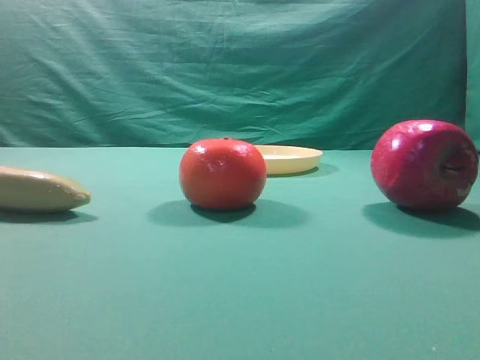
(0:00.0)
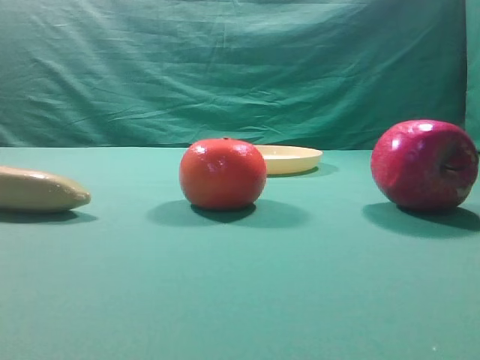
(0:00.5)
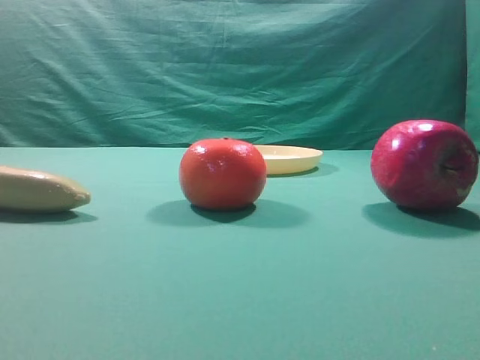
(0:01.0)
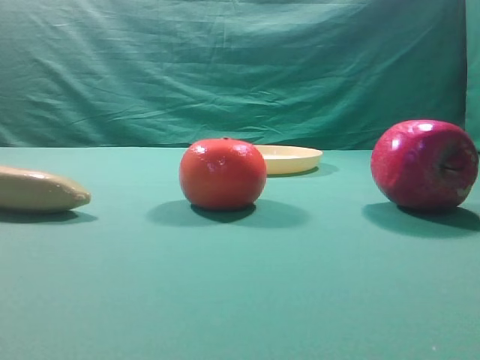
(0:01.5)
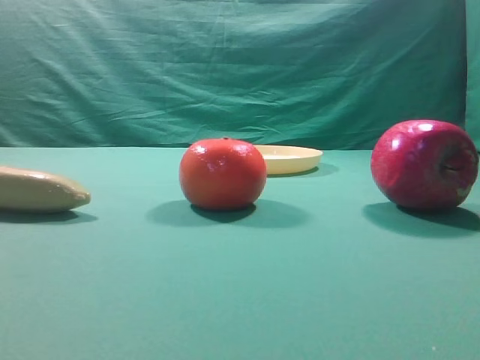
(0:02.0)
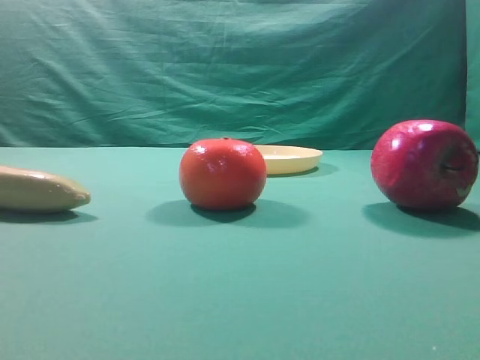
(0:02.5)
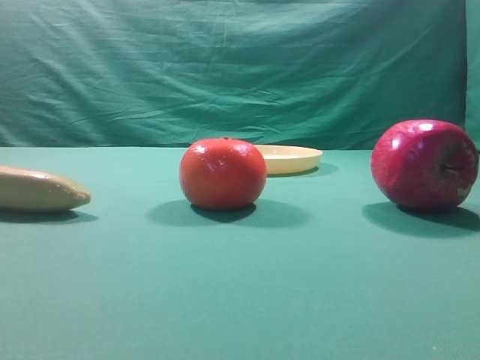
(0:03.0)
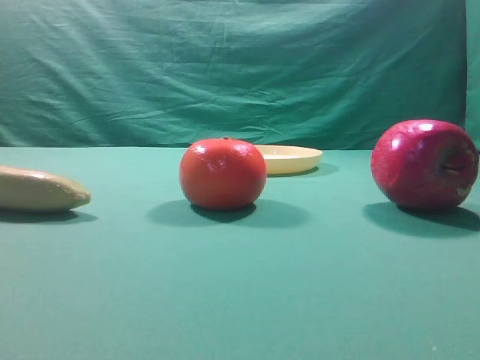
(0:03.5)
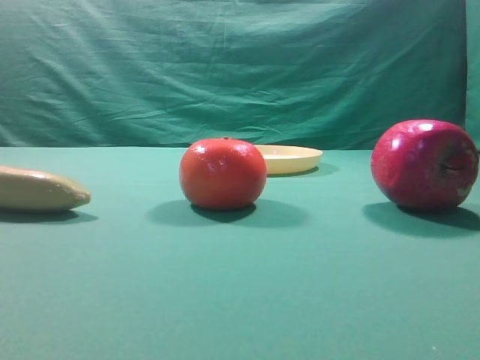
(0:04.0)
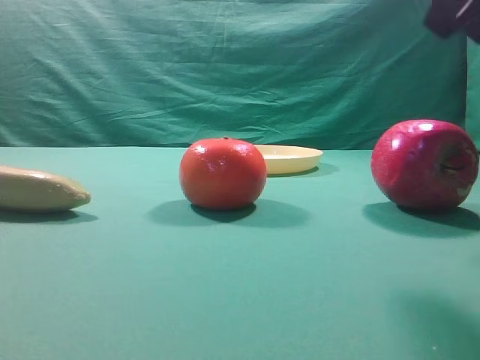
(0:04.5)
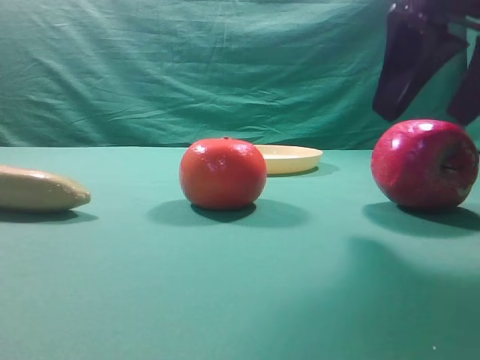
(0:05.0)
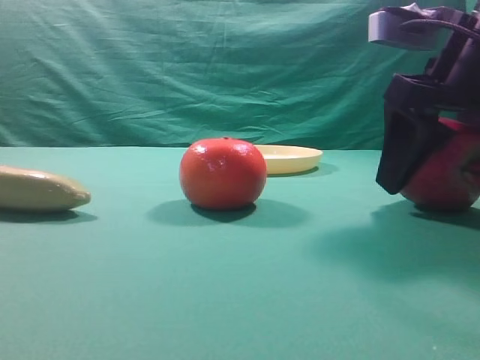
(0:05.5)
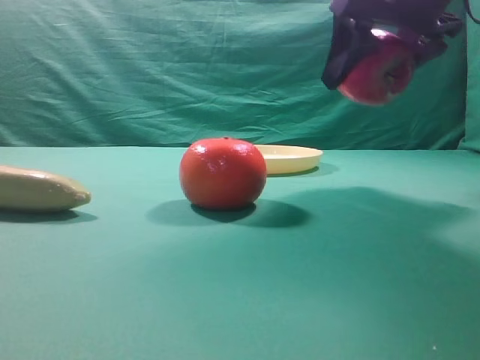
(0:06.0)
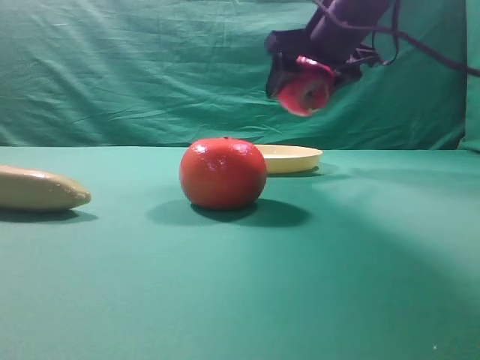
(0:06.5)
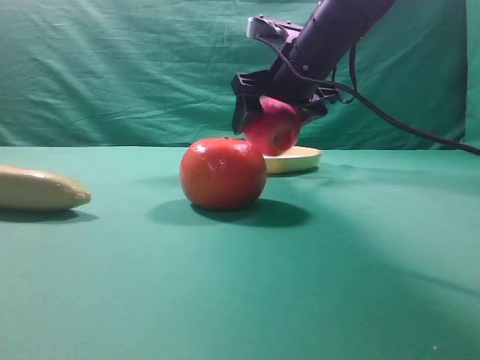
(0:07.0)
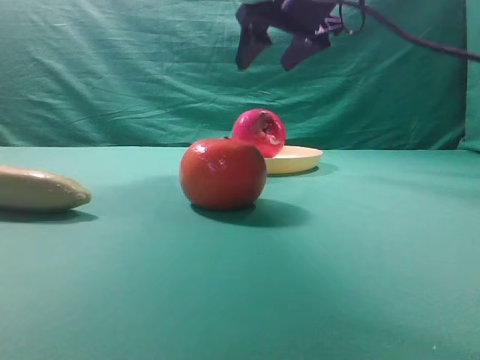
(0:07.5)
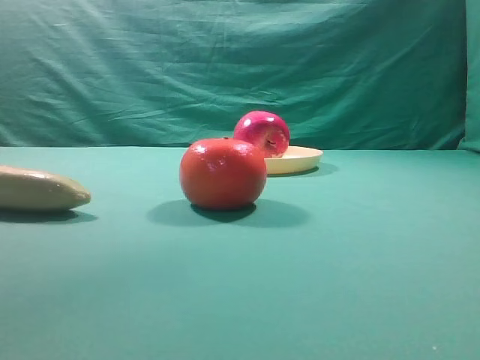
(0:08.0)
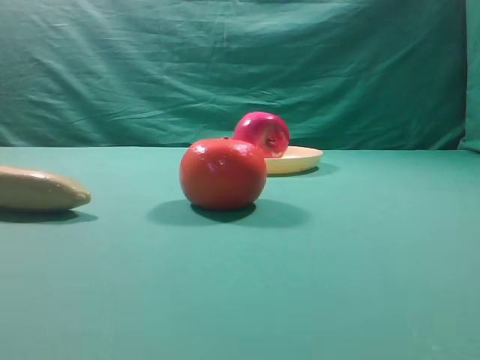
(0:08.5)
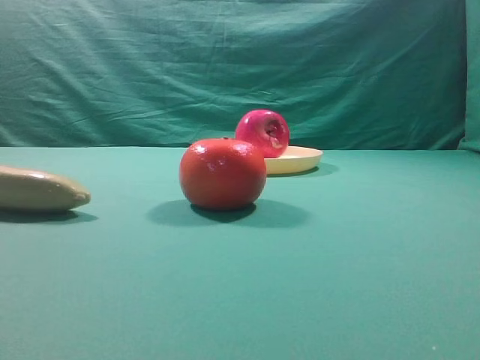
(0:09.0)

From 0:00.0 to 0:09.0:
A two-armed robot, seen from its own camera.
Task of the whole recording: grasp the apple and place it into the yellow plate.
Step, from 0:00.0 to 0:05.5: Grasp the fruit that can keep the doctor away.
Step, from 0:06.0 to 0:07.0: Place the picked object into the yellow plate.

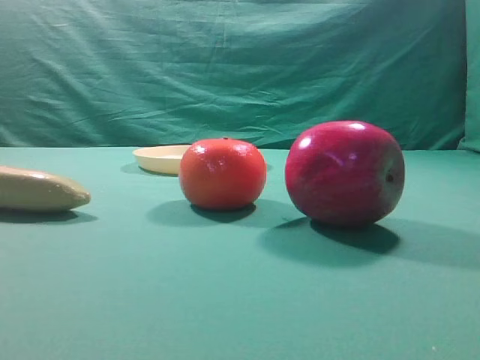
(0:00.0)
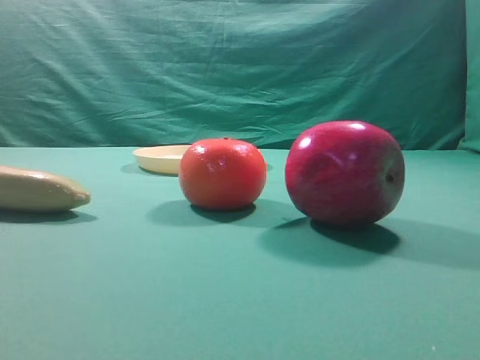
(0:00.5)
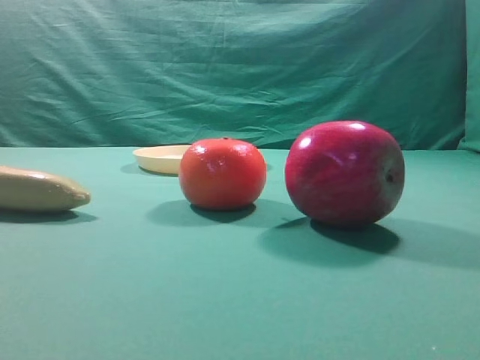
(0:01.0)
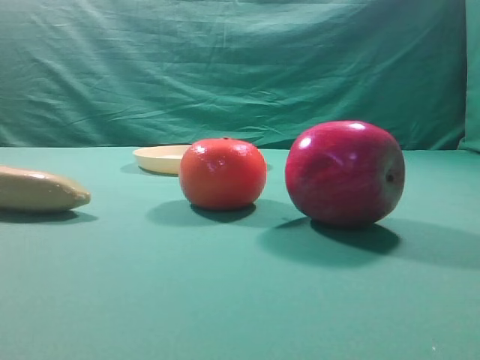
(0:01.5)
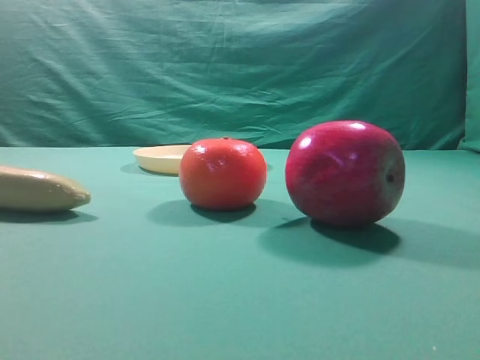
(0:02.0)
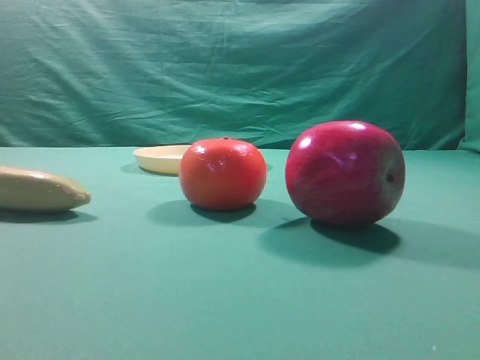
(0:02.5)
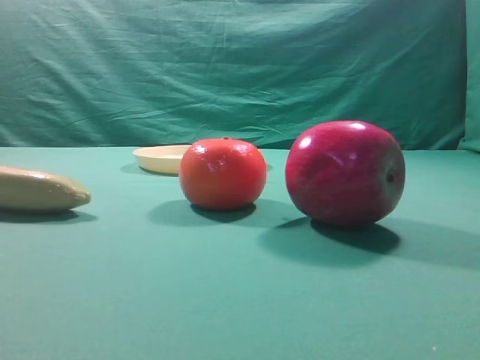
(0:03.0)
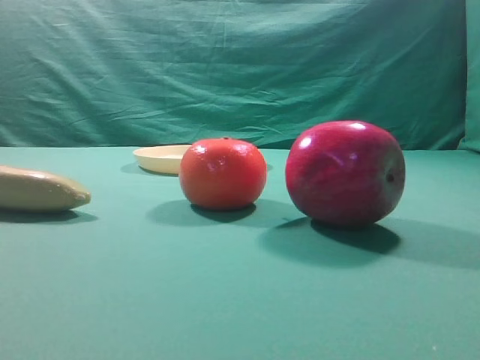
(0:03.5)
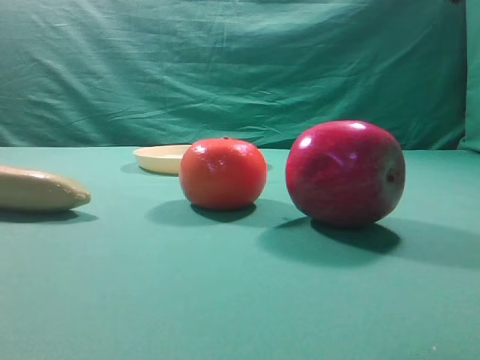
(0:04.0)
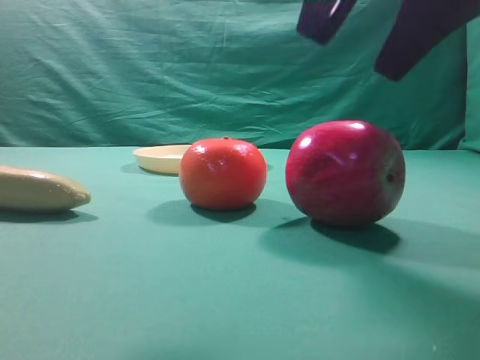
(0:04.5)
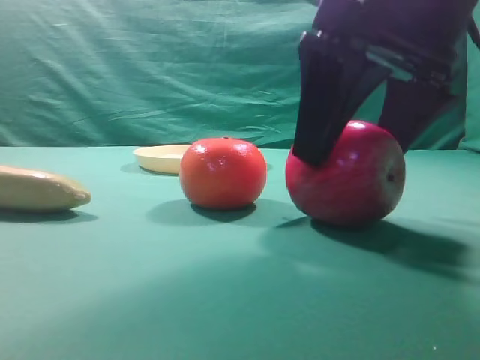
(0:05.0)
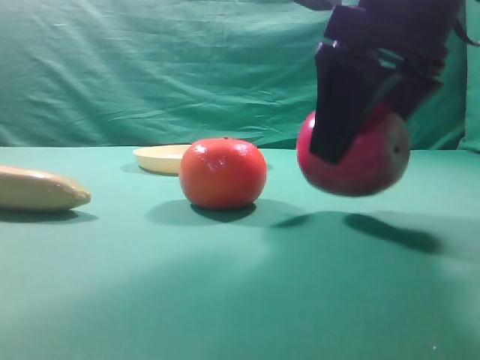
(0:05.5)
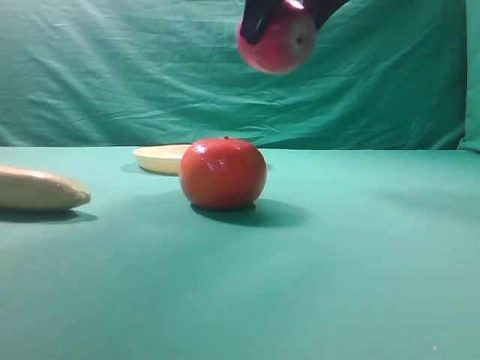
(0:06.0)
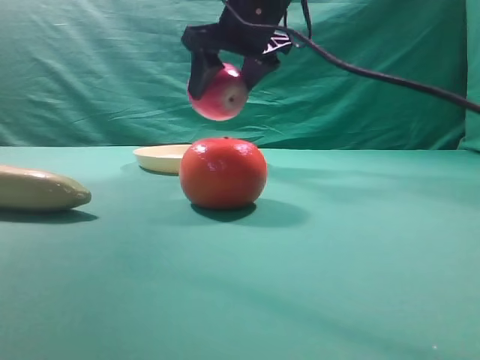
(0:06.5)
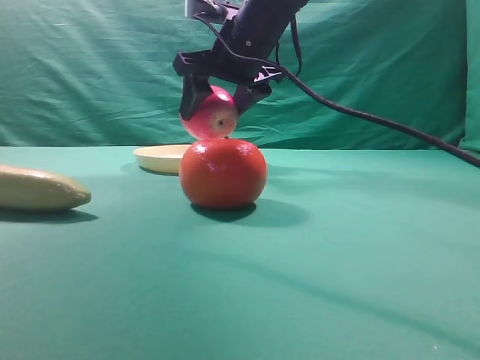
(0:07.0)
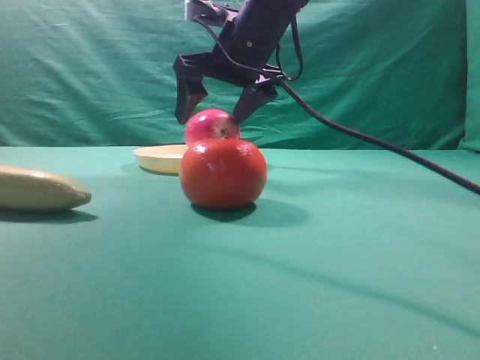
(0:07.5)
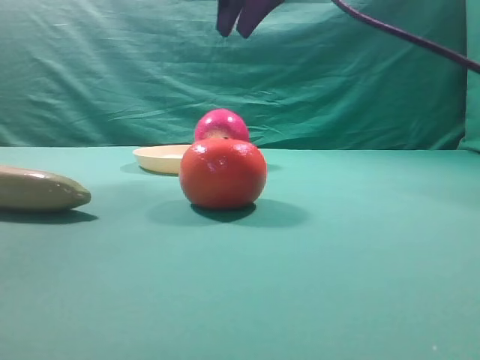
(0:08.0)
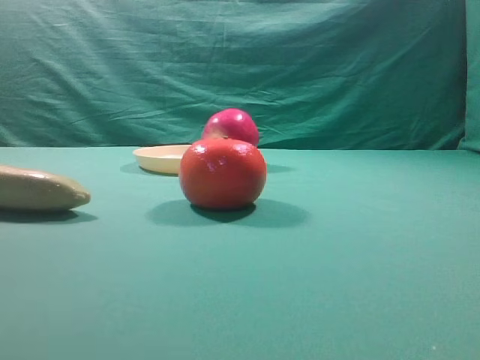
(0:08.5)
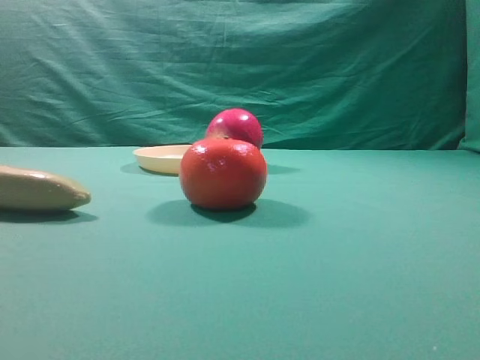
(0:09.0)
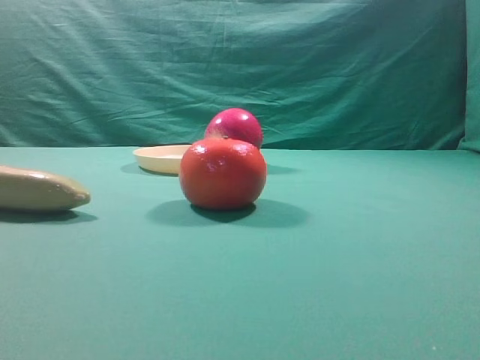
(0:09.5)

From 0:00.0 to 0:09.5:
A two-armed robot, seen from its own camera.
Task of the whole recording: grasp the apple and place it into the yellow plate.
Step, from 0:00.0 to 0:05.5: Grasp the fruit that can keep the doctor away.
Step, from 0:06.0 to 0:07.5: Place the picked object into the yellow plate.
